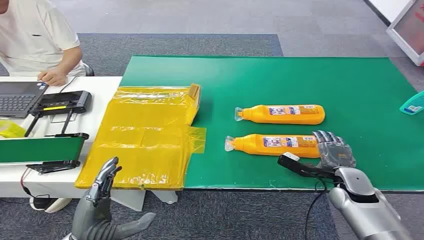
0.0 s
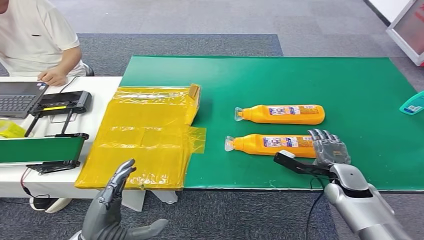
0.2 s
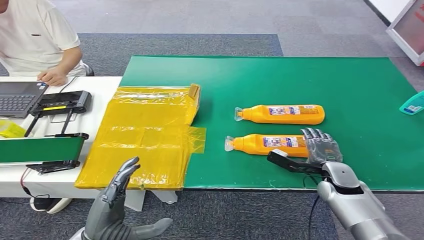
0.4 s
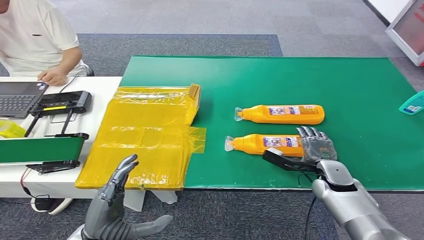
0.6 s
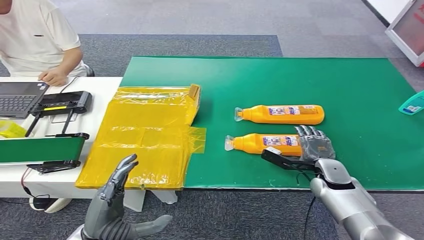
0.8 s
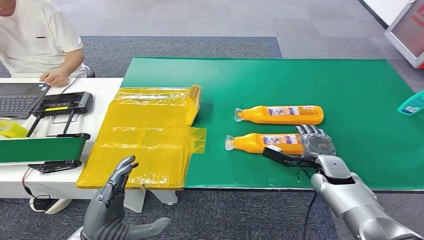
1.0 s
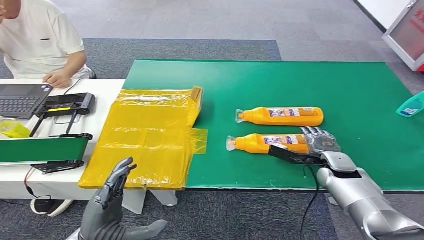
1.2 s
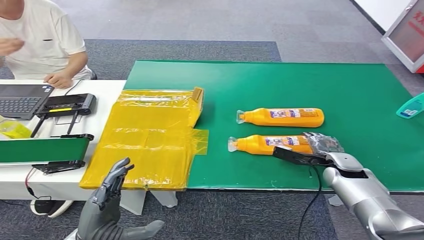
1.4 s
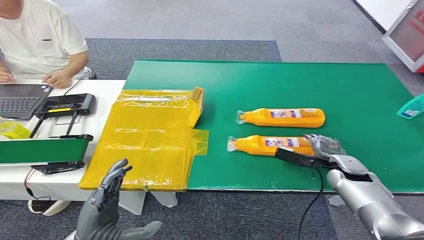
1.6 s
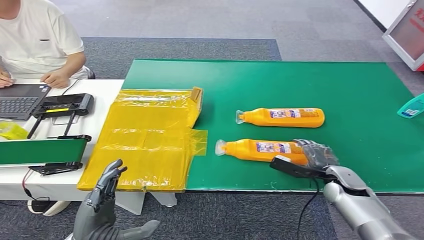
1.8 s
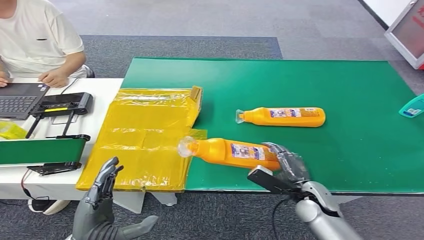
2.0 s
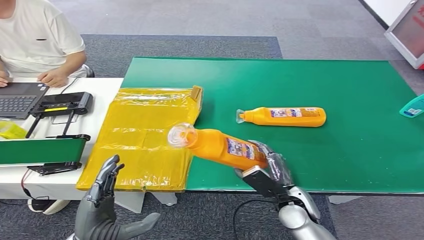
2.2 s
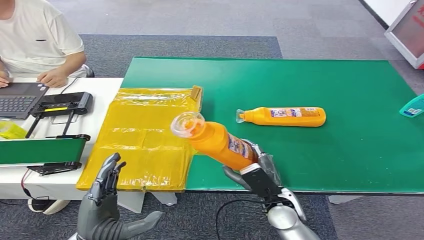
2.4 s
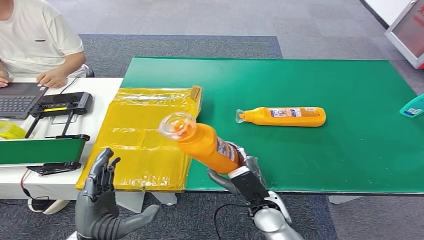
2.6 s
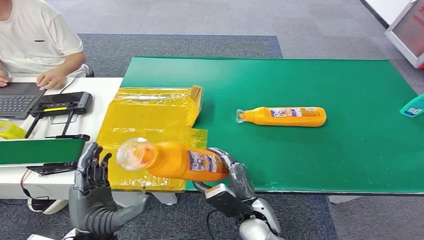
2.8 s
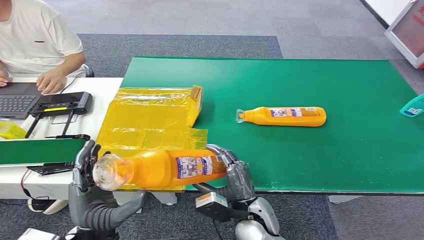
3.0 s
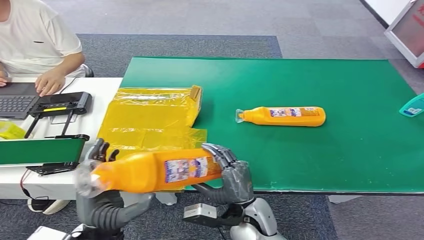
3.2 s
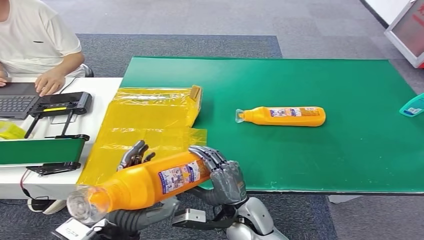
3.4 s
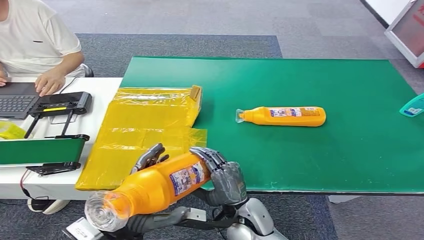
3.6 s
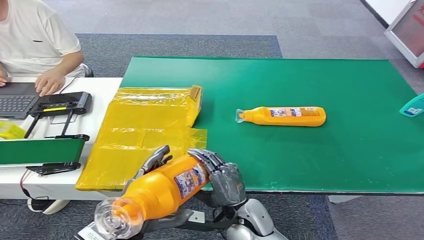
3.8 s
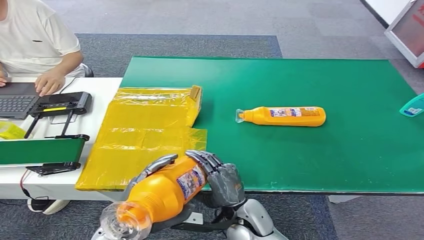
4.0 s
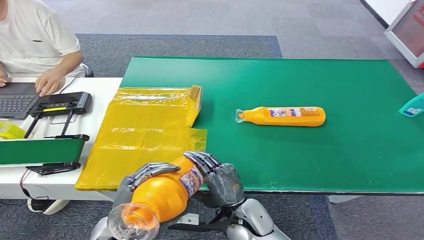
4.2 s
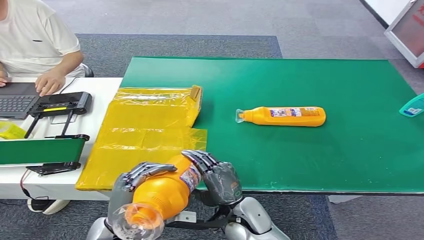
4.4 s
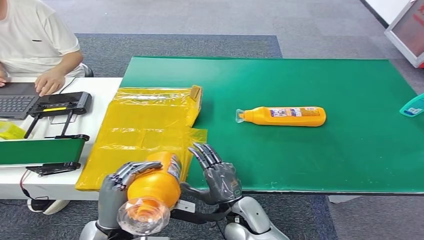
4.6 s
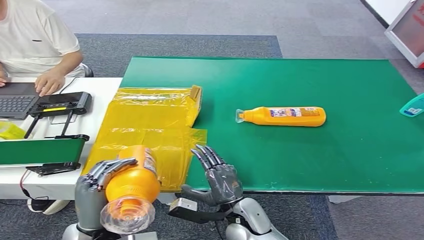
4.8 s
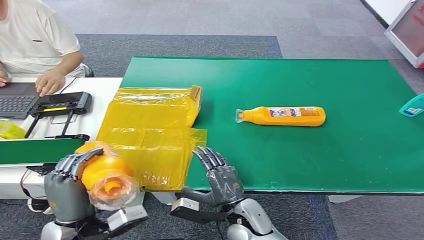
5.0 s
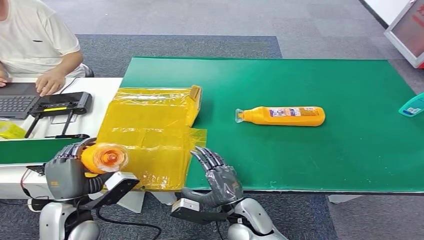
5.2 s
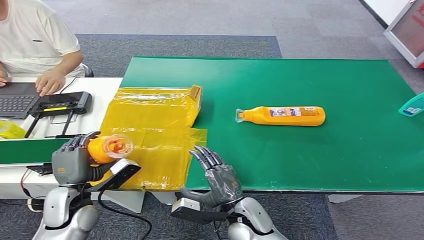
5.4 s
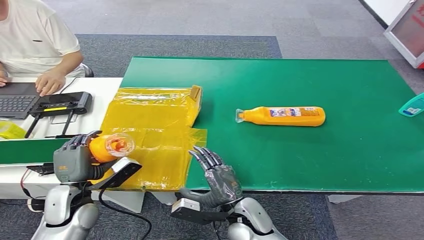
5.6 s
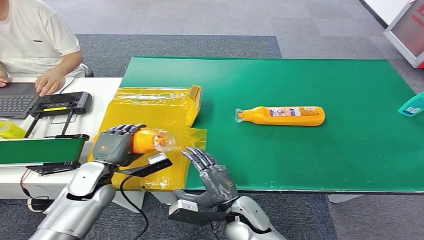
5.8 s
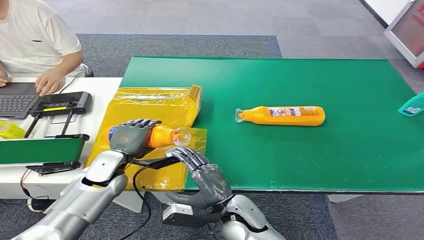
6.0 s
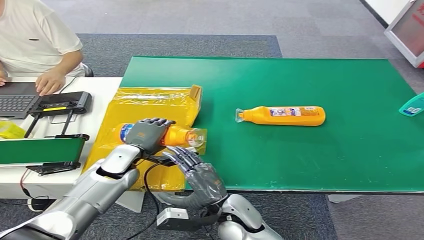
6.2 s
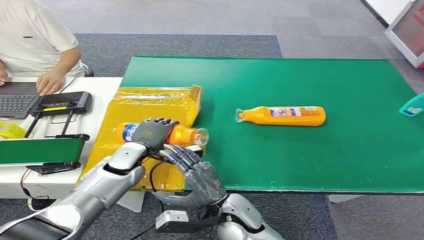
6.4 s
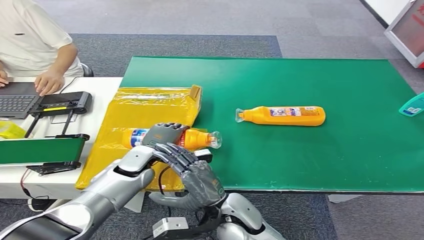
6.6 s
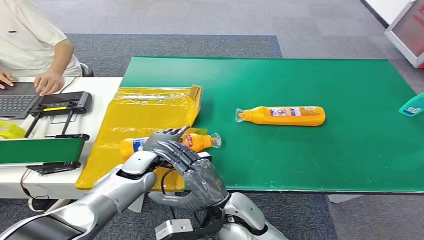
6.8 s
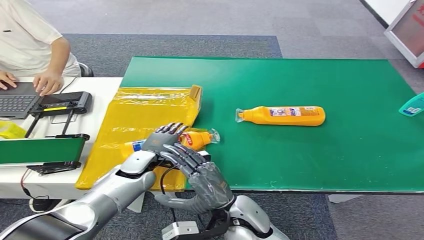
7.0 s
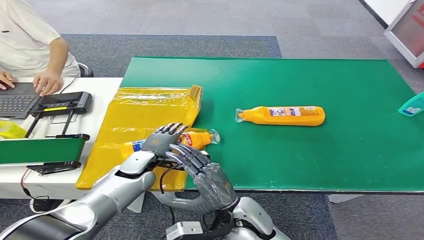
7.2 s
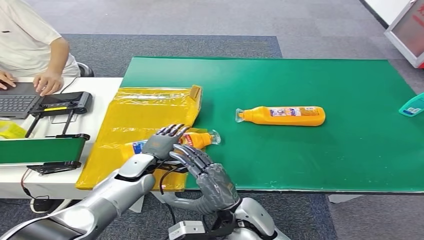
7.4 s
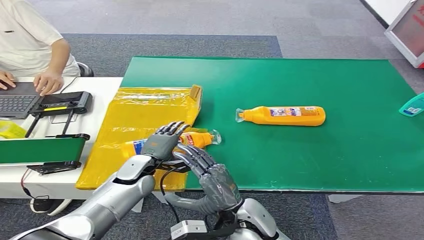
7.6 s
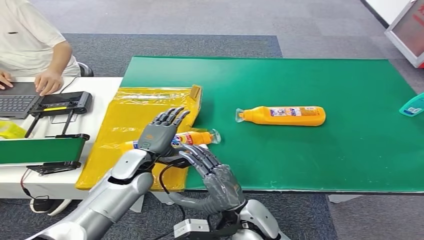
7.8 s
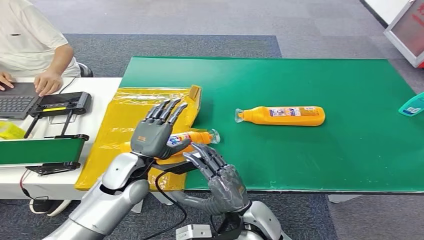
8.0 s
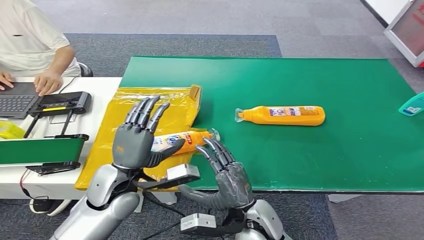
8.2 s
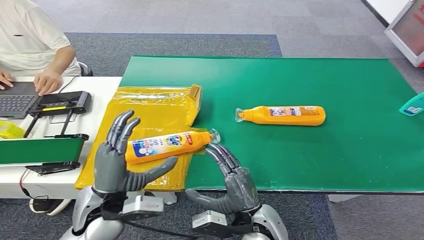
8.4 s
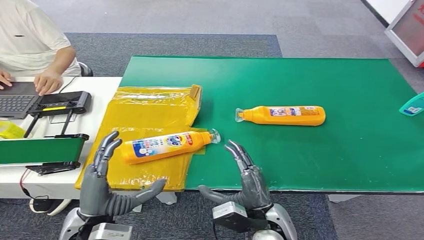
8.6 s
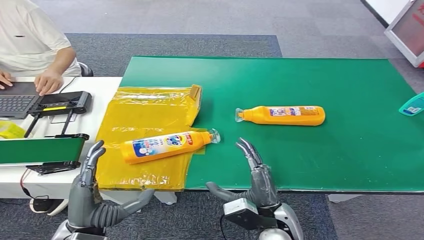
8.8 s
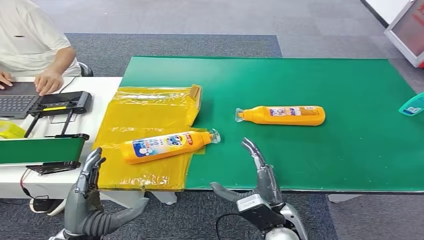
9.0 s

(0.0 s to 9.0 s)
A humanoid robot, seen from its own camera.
Step, 0.0 s - 3.4 s: Pick up the bottle from the table.
Step, 4.6 s - 8.8 s: Turn the bottle to the front side.
4.4 s - 6.0 s: The left hand moves forward, some 20 cm.
6.0 s - 7.6 s: The left hand heads to the right, covering roughly 5 cm.
7.6 s - 9.0 s: The left hand travels backward by about 20 cm, while the right hand shifts roughly 5 cm to the right.
